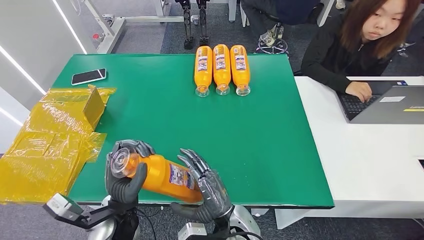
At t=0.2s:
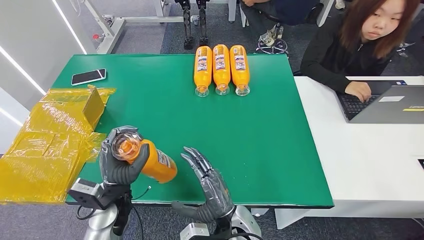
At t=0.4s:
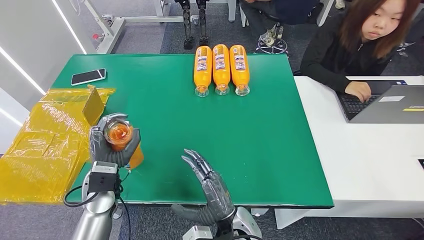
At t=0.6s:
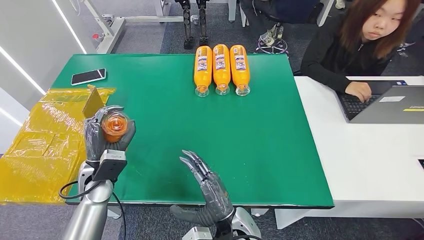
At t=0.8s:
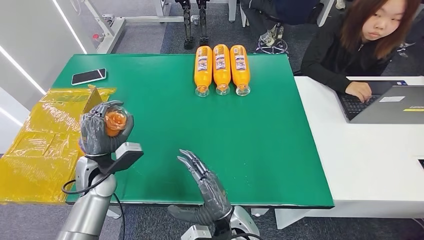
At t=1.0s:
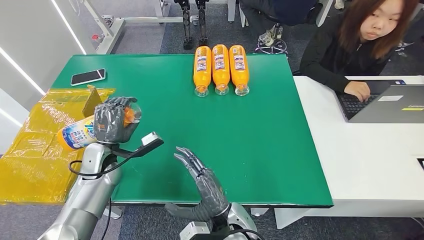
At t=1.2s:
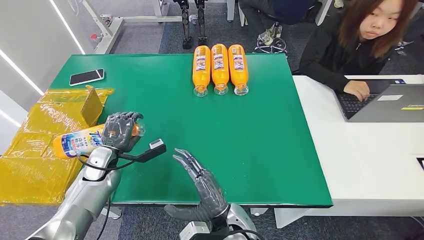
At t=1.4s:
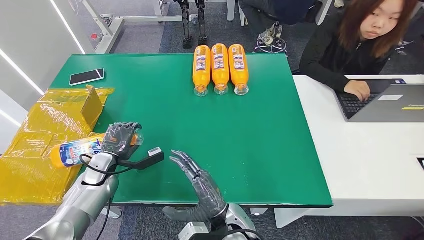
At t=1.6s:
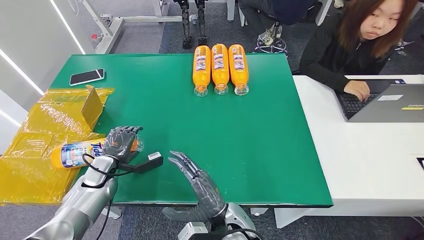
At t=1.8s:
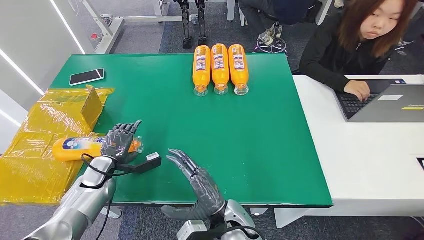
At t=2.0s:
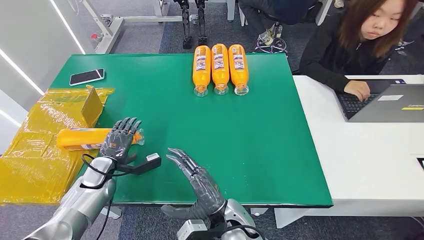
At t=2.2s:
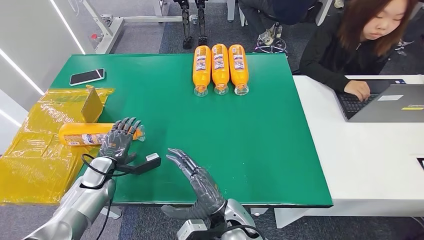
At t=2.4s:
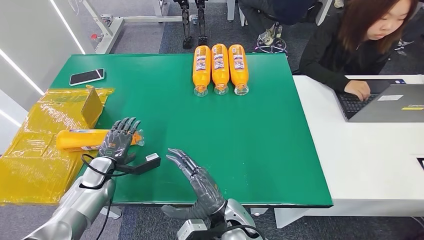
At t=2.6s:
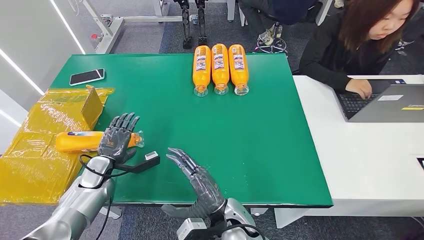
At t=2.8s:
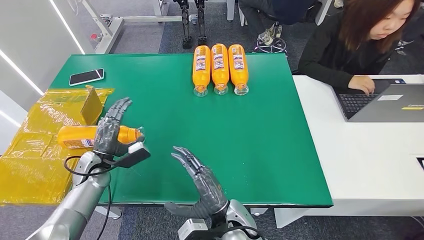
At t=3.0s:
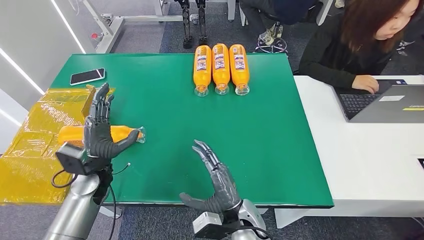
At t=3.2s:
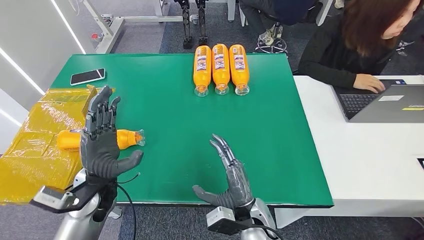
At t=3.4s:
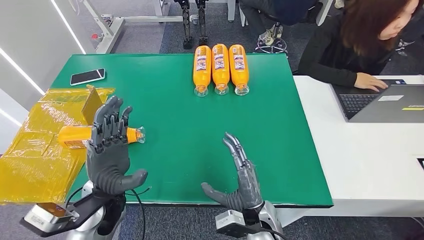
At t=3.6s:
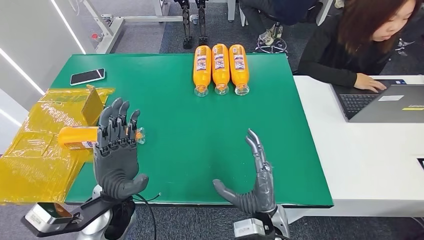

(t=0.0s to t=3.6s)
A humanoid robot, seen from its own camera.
Step, t=0.0s - t=3.6s: Turn the bottle to the front side.
t=0.0s - t=1.8s: The left hand heads to the left and forward, covering approximately 20 cm.
t=1.8s - t=3.6s: The right hand heads to the right, covering approximately 10 cm. The left hand goes about 20 cm to the right, upward and backward.
